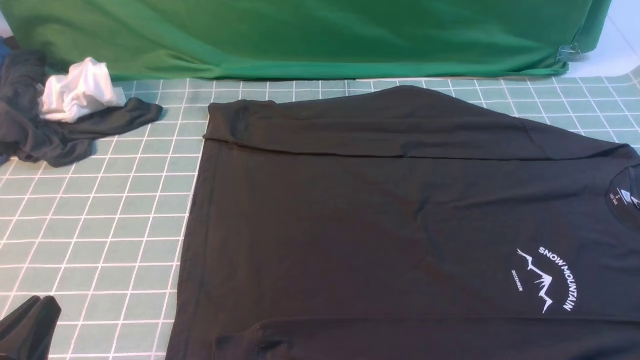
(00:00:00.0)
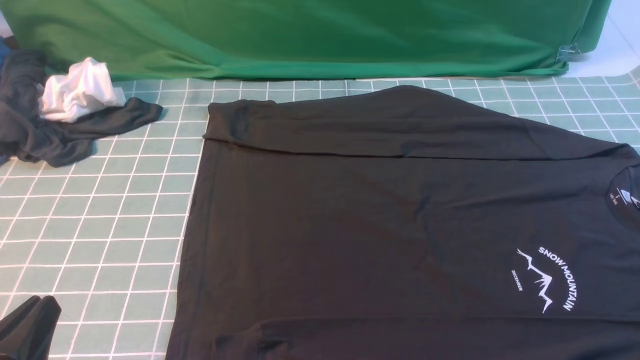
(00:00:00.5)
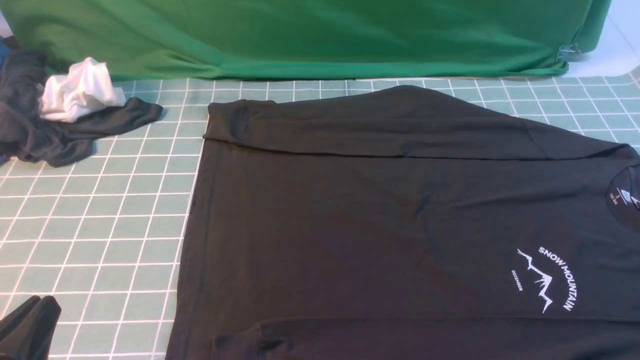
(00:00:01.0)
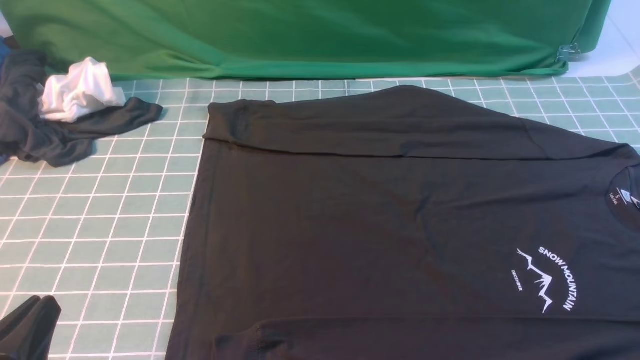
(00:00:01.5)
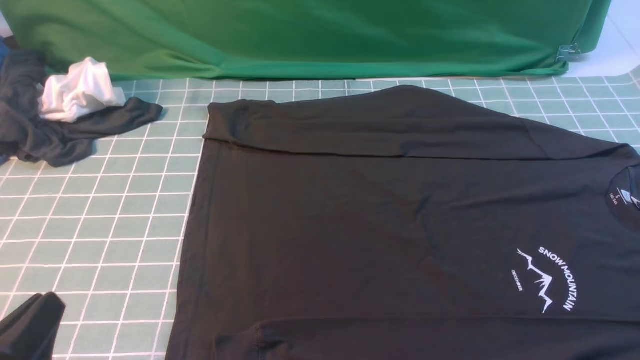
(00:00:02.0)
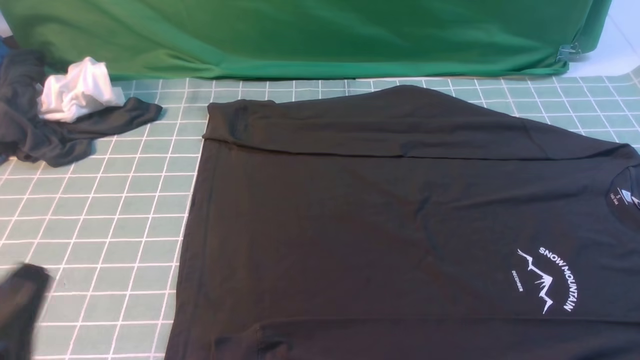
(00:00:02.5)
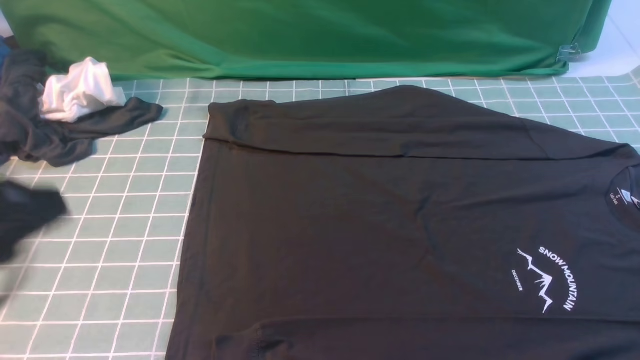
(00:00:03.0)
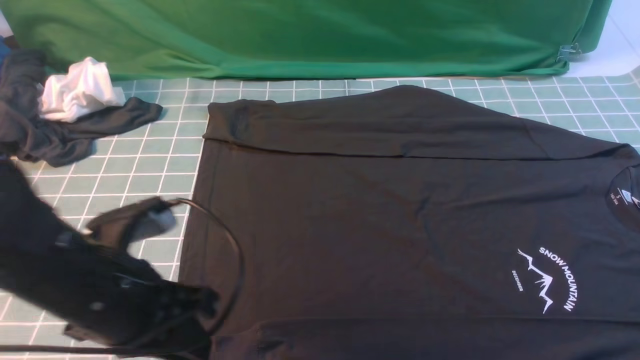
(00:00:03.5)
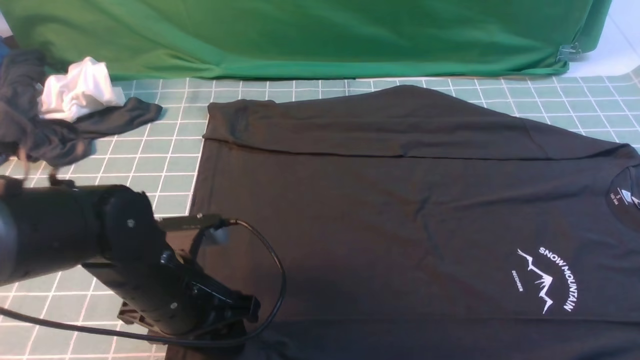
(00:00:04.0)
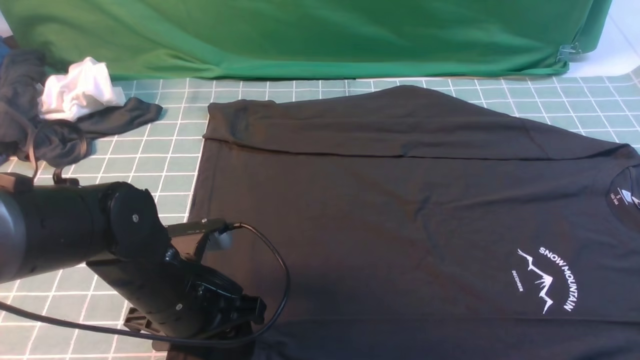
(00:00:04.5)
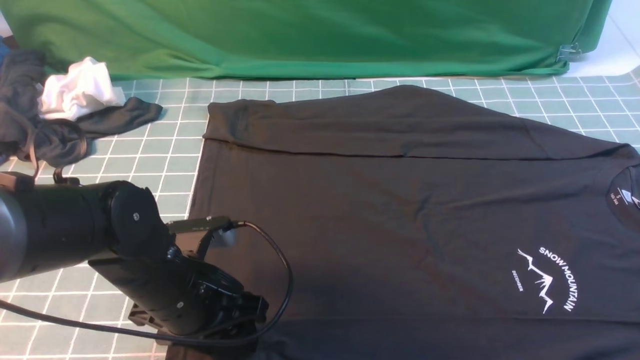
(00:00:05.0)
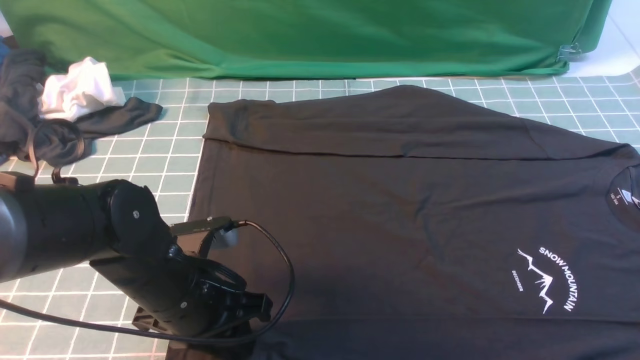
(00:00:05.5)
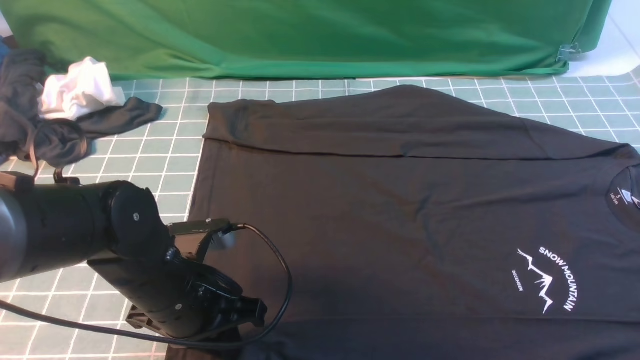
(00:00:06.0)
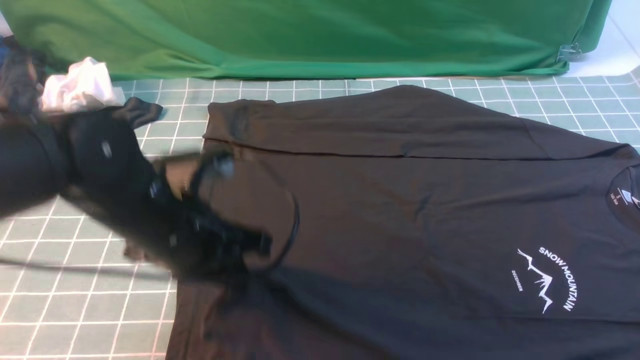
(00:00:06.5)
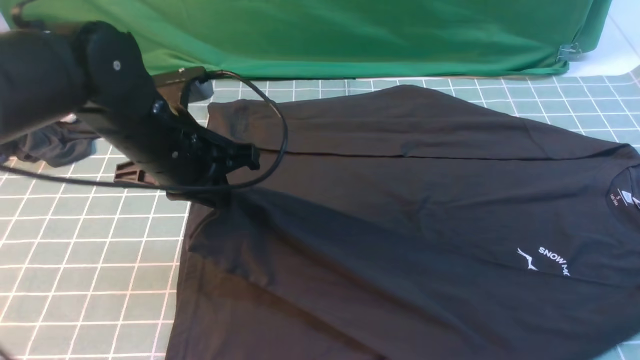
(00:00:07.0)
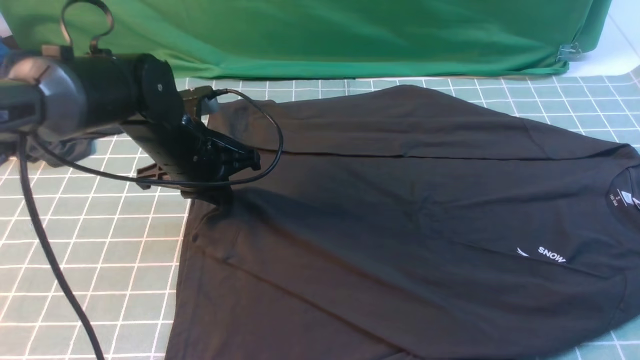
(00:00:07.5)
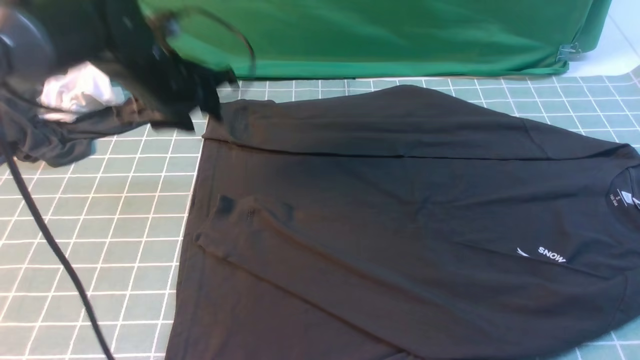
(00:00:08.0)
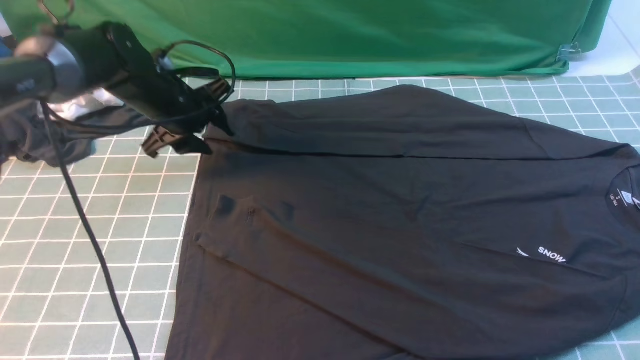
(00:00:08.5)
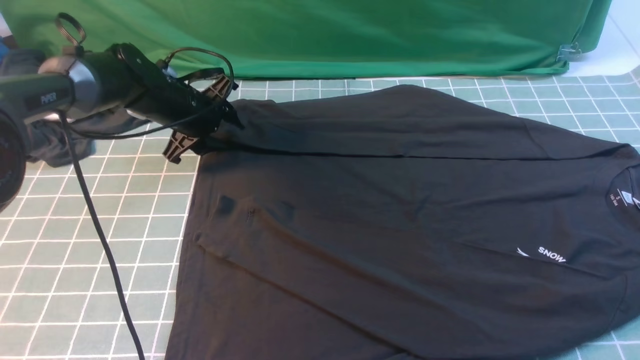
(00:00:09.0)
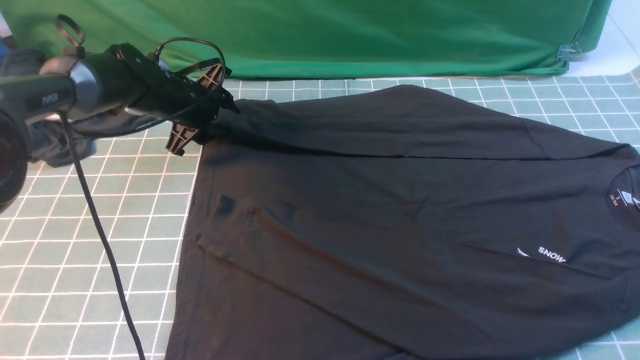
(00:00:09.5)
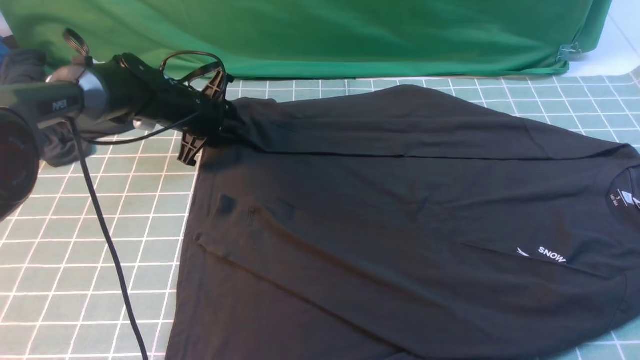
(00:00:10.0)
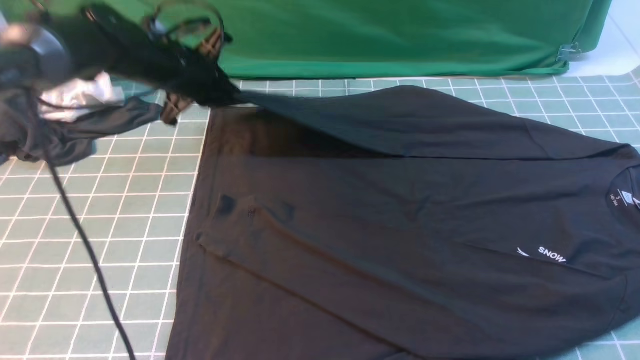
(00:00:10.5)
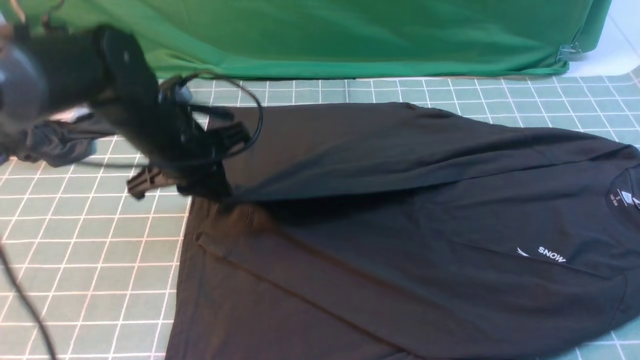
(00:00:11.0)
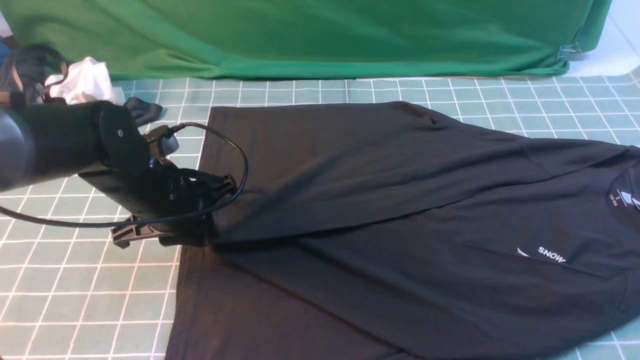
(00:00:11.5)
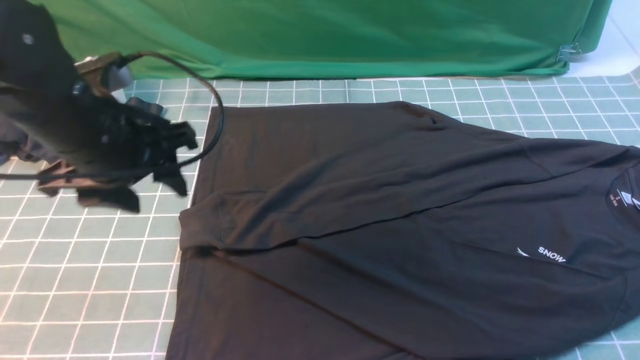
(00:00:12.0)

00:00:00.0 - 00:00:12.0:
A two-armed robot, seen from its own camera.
Step, 00:00:00.0 - 00:00:06.0: use the left arm to clamp the cuff closest to it.
Step, 00:00:06.5 - 00:00:07.5: use the left arm to drag and place the cuff at the centered position on the left edge of the fabric.
Step, 00:00:08.0 - 00:00:10.0: use the left arm to clamp the cuff farthest from it.
Step, 00:00:10.5 - 00:00:11.5: use the left arm to drag and drop the cuff onto the cuff closest to the left arm.
00:00:02.0 - 00:00:04.0: The left gripper moves forward and to the right, roughly 20 cm, travels upward and back again, roughly 15 cm each way, and opens its fingers; the right gripper travels upward and forward by about 15 cm, and closes its fingers.
00:00:04.0 - 00:00:06.0: The left gripper closes up.
00:00:06.0 - 00:00:08.0: The left gripper shifts approximately 20 cm forward, and opens its fingers.
00:00:08.0 - 00:00:10.0: The left gripper shifts approximately 10 cm downward and forward.
00:00:10.0 - 00:00:12.0: The left gripper is displaced backward and upward by some 25 cm, and opens.

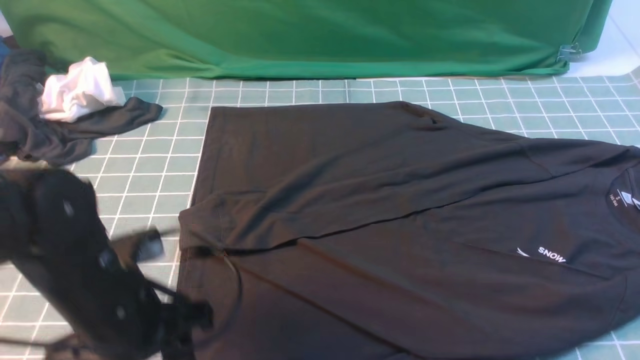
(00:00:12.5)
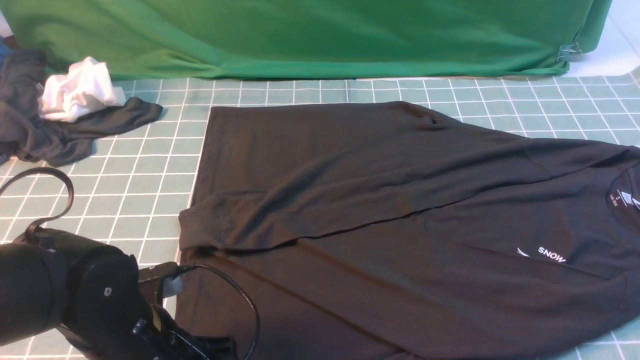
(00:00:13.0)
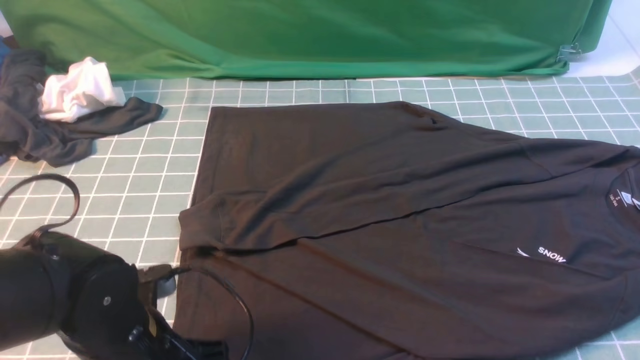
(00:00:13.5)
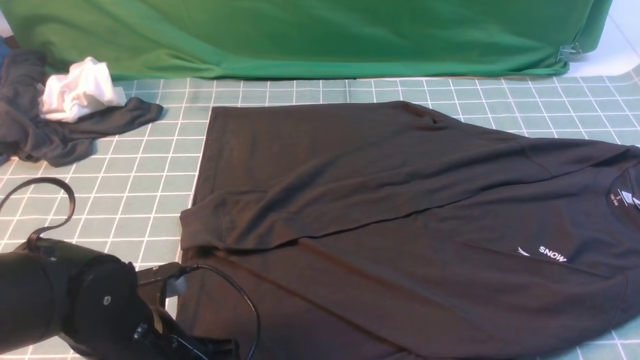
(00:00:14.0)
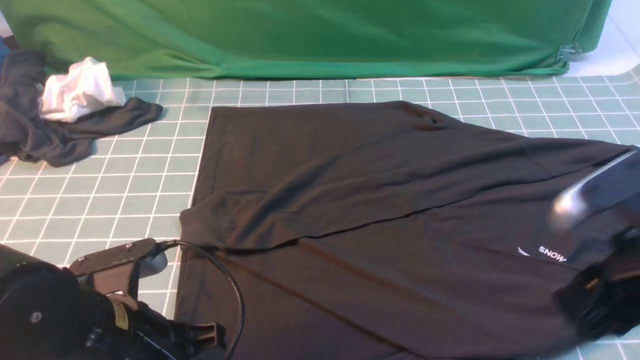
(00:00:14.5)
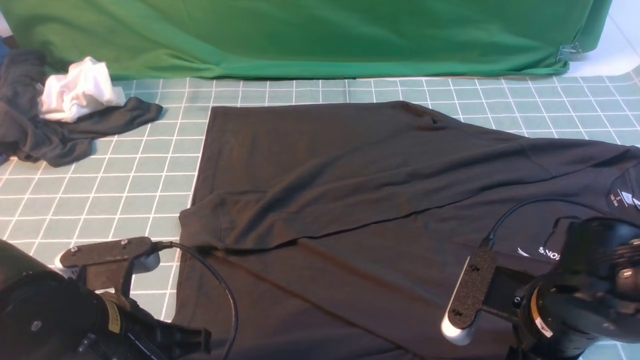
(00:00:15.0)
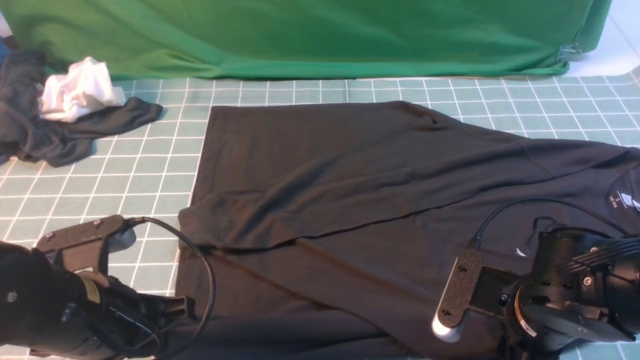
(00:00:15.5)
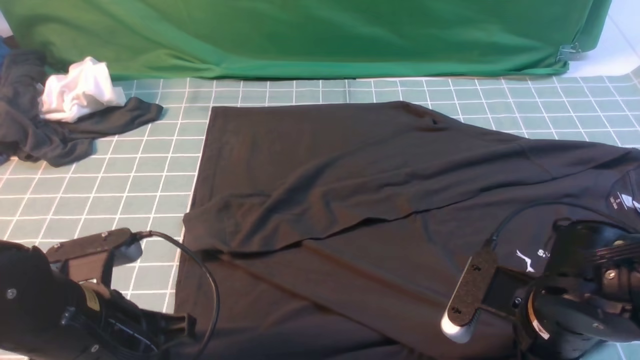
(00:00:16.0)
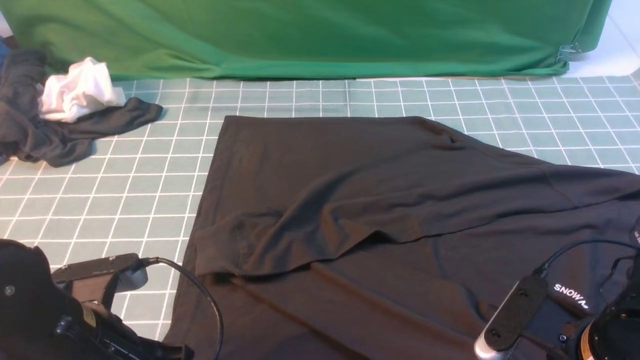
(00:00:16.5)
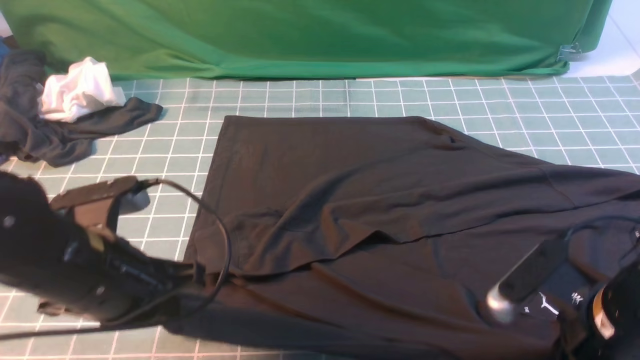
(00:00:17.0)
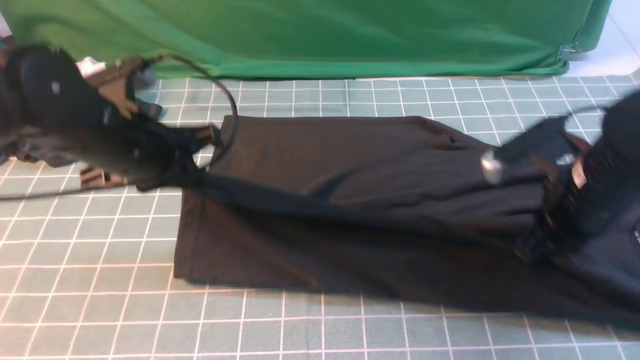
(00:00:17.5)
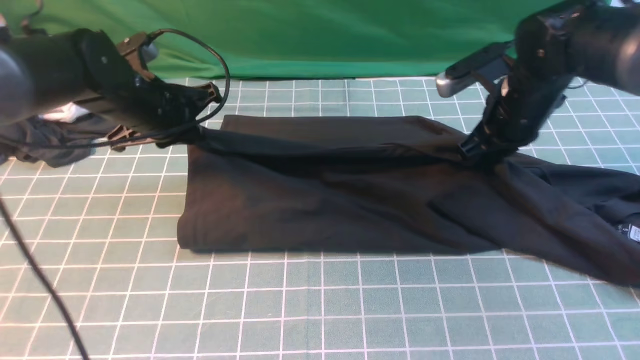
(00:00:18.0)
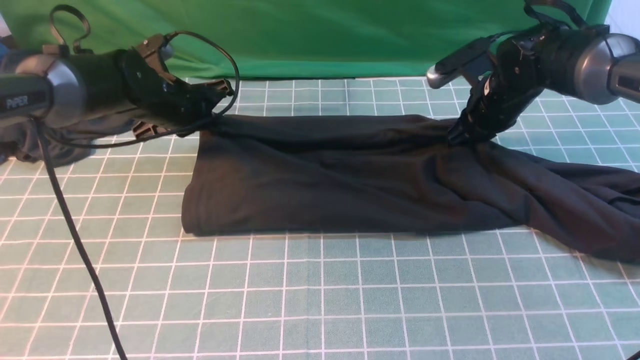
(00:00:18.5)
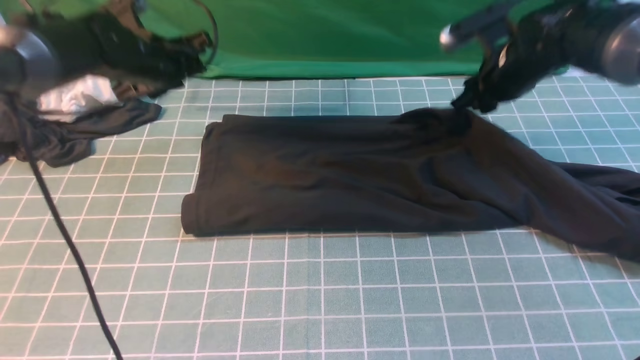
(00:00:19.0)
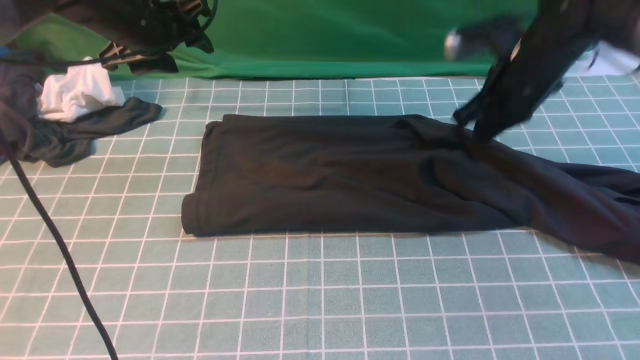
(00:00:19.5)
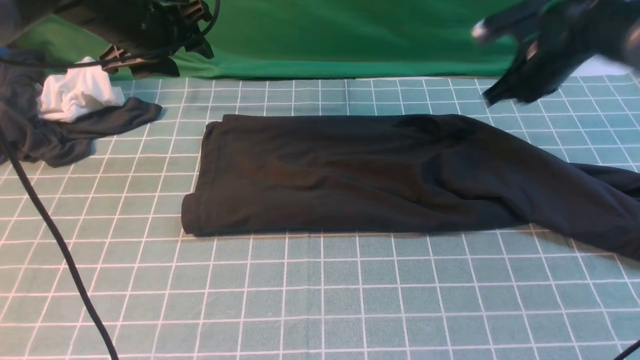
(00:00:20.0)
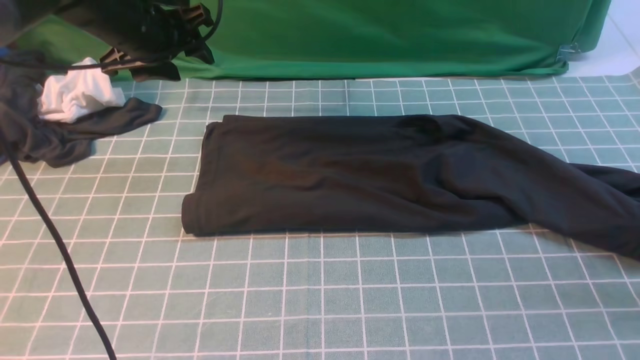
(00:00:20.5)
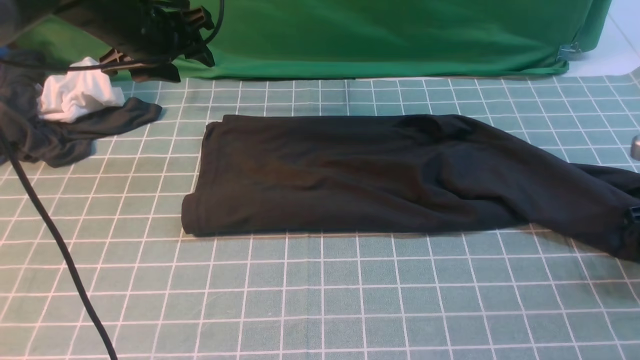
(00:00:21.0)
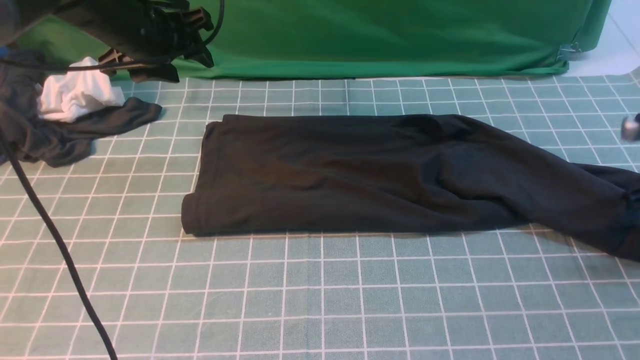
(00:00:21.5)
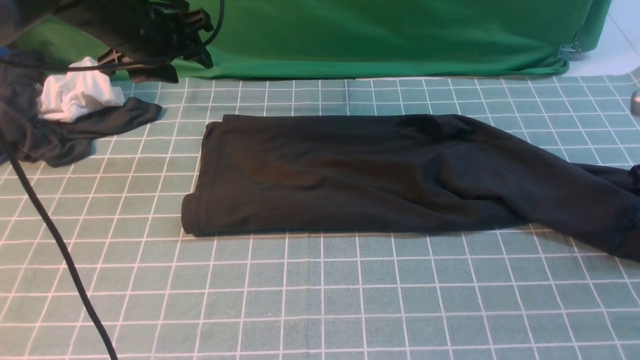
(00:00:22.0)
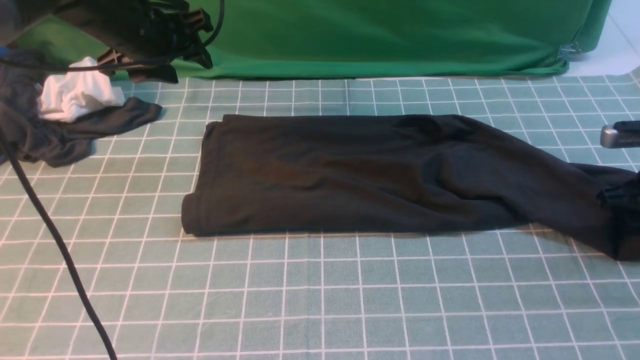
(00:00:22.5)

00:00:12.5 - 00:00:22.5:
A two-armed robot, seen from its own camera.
Step, 00:00:12.5 - 00:00:16.0: use both arms simultaneously to clamp the lower edge of the clothing fabric.
Step, 00:00:17.0 - 00:00:19.0: use both arms to drag the lower edge of the fabric forward and fold it over the upper edge.
00:00:12.5 - 00:00:14.5: The left gripper closes; the right gripper shifts roughly 10 cm downward.
00:00:14.5 - 00:00:16.5: The right gripper travels downward by approximately 10 cm, and closes its fingers.
00:00:16.5 - 00:00:18.5: Both grippers move forward, approximately 30 cm.
00:00:18.5 - 00:00:20.5: The left gripper is displaced upward by about 10 cm, and opens, while the right gripper moves to the right, backward and upward, approximately 25 cm.
00:00:20.5 - 00:00:22.5: The right gripper shifts some 15 cm downward.
